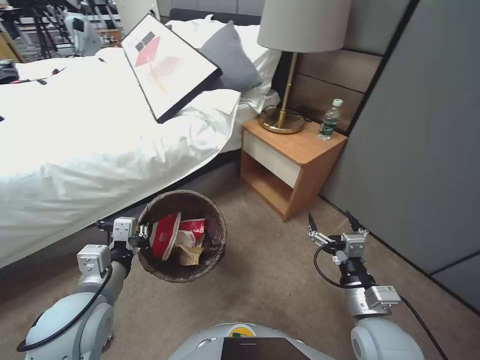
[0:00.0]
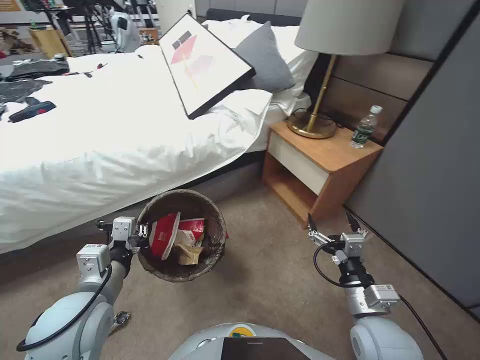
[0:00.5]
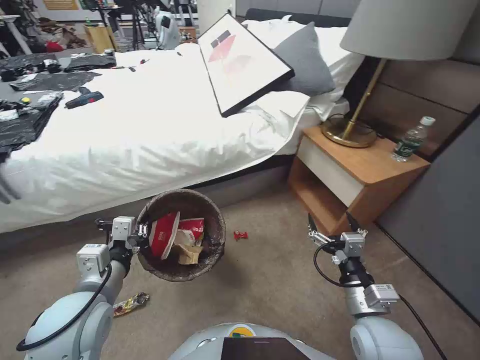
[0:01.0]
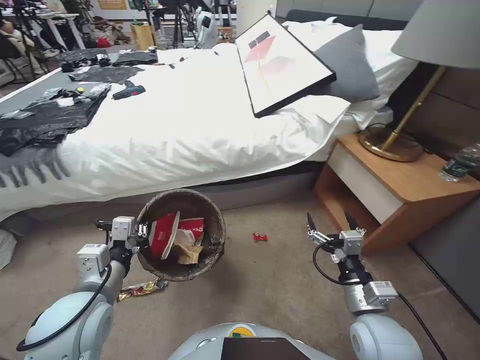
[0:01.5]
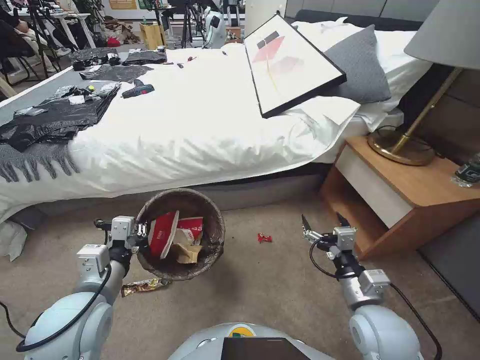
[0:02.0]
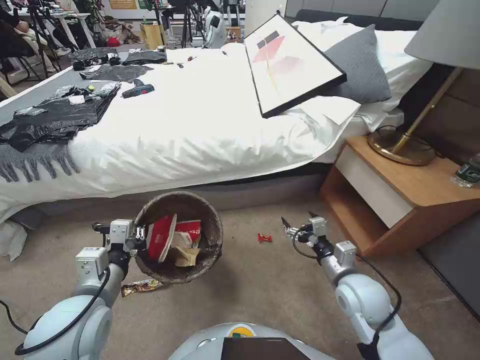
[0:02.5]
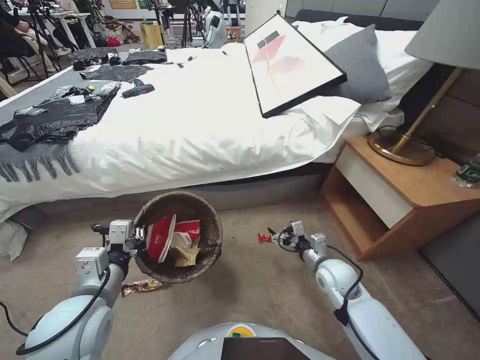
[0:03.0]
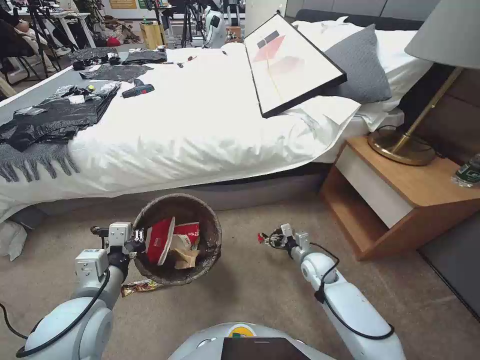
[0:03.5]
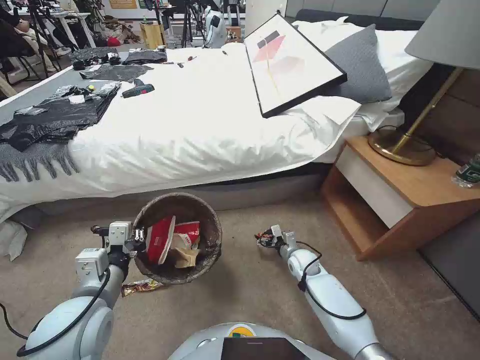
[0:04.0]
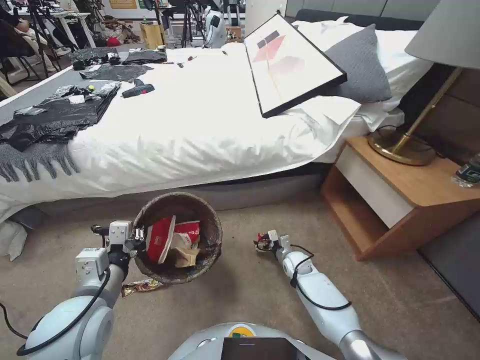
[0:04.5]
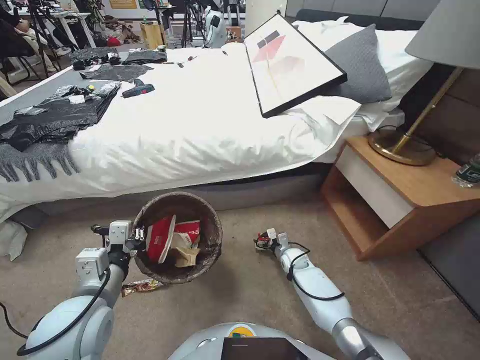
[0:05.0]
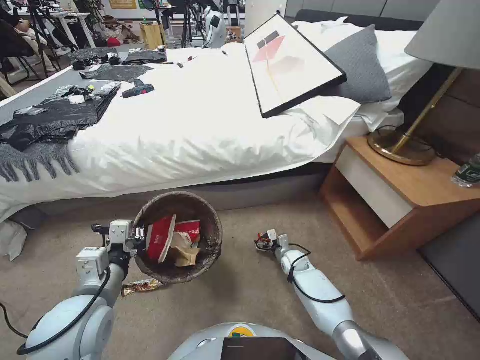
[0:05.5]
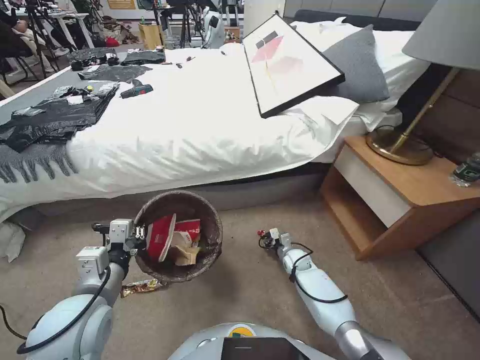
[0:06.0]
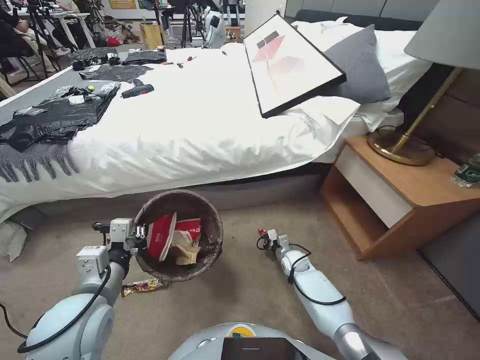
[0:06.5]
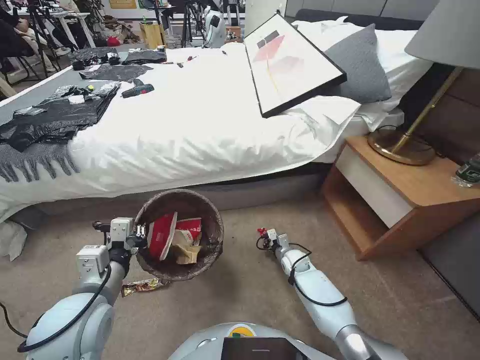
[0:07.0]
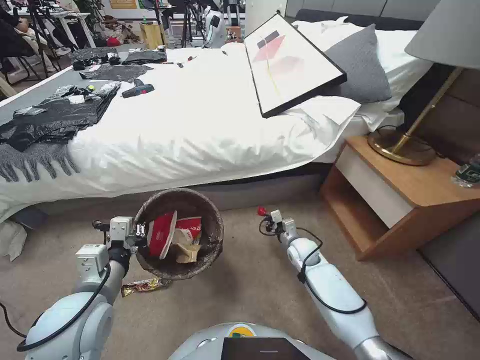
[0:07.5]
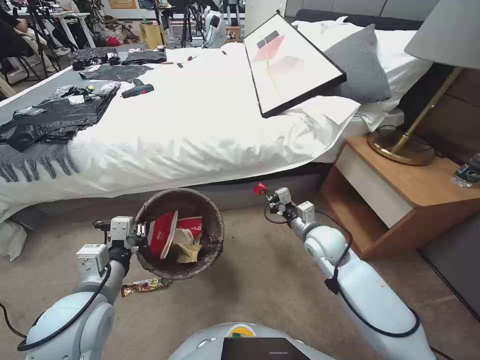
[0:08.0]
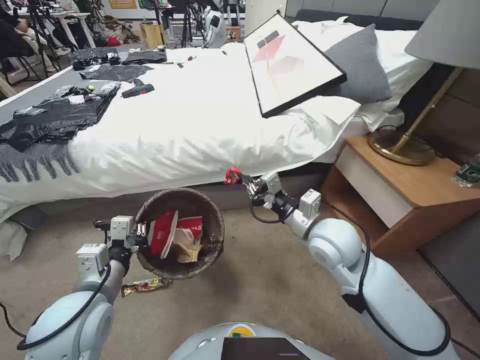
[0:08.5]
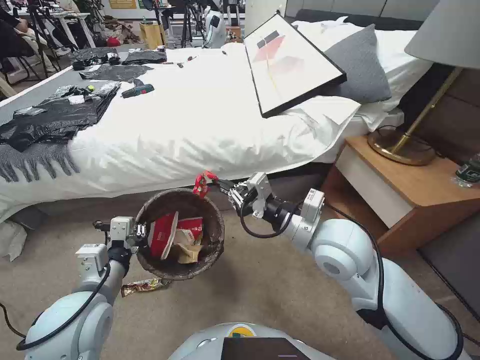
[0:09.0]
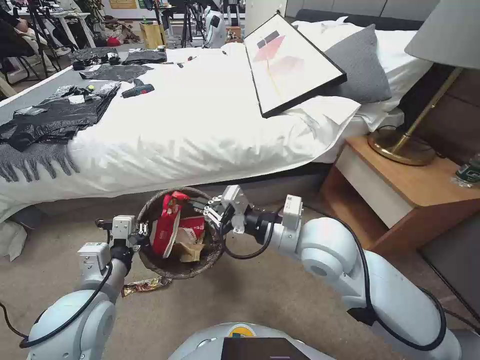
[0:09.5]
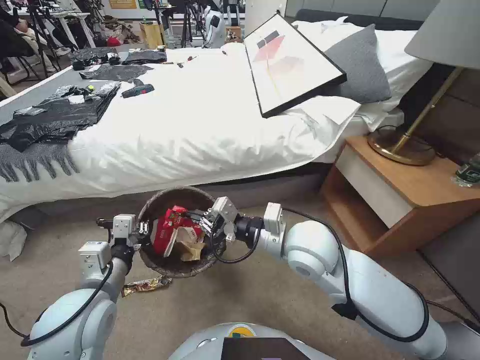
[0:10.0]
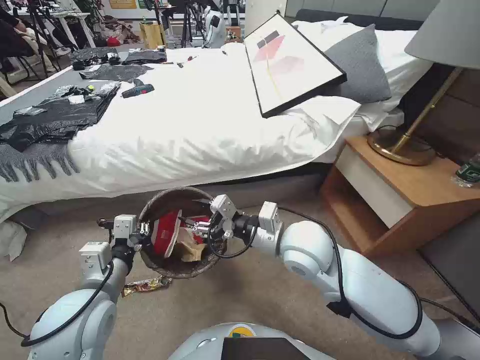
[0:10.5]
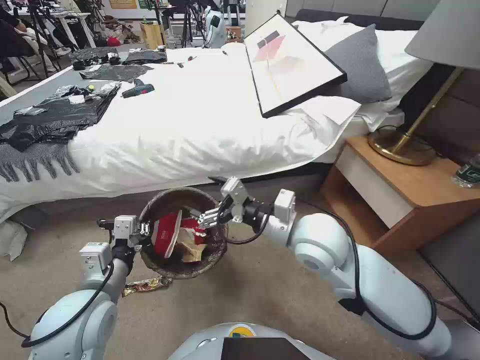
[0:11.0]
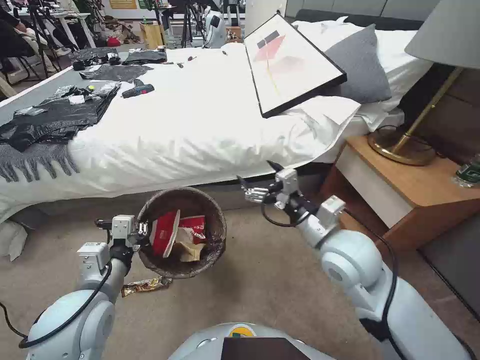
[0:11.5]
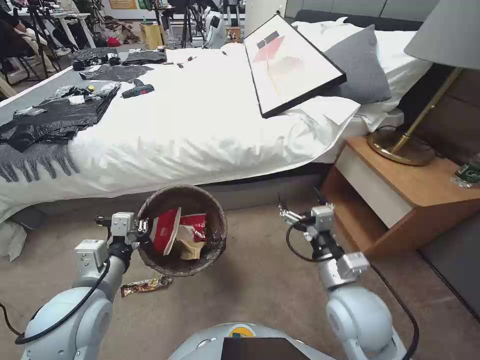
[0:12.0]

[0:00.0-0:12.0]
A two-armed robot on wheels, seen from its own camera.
Task of the whole recording: Pick up the trash bin, then pick up the garbage from the floor and place it into the trash bin.
0:02.0 to 0:04.0: The right gripper travels forward and downward by approximately 30 cm.
0:04.0 to 0:06.0: The right gripper goes approximately 5 cm downward, and closes its fingers.
0:06.0 to 0:08.0: The right gripper moves upward, some 25 cm, and closes.
0:08.0 to 0:10.0: The right gripper is displaced upward, to the left and backward by roughly 20 cm.
0:10.0 to 0:12.0: The right gripper travels to the right, backward and downward by approximately 15 cm, and opens up.

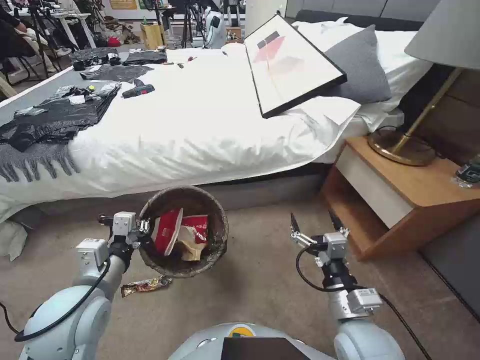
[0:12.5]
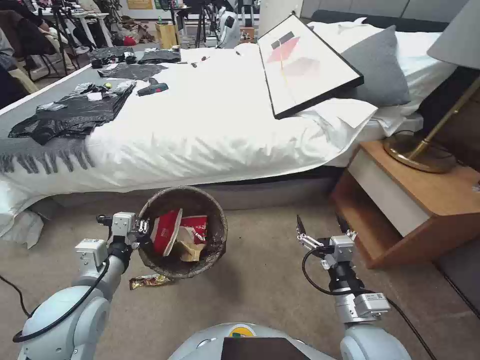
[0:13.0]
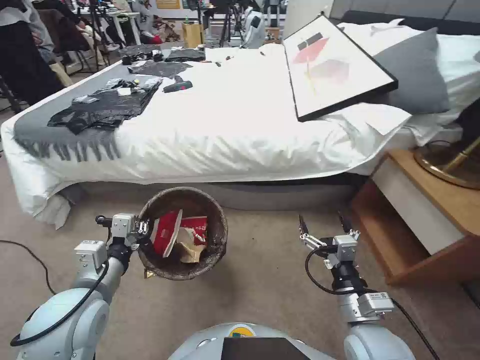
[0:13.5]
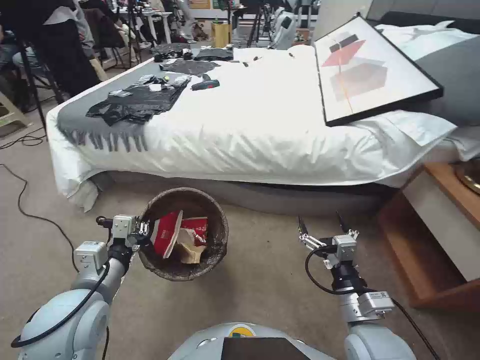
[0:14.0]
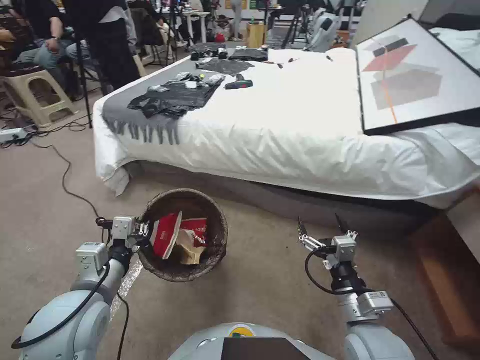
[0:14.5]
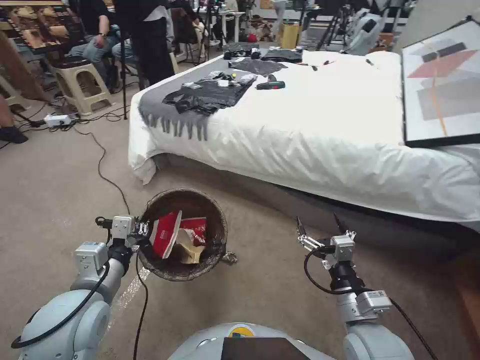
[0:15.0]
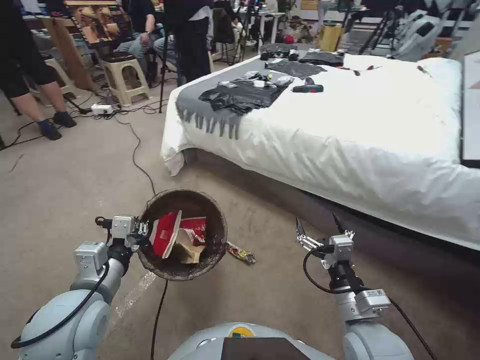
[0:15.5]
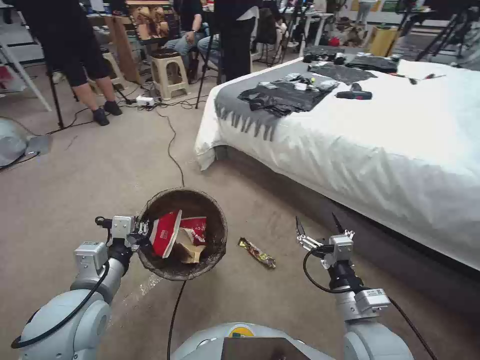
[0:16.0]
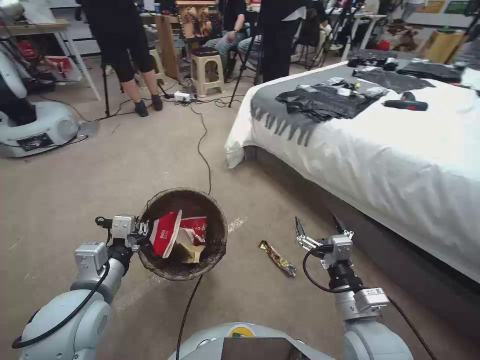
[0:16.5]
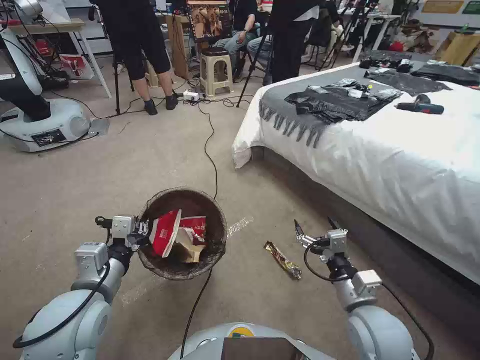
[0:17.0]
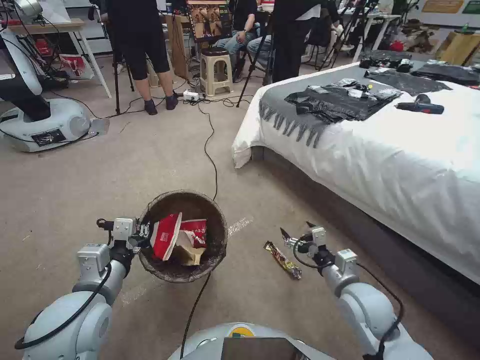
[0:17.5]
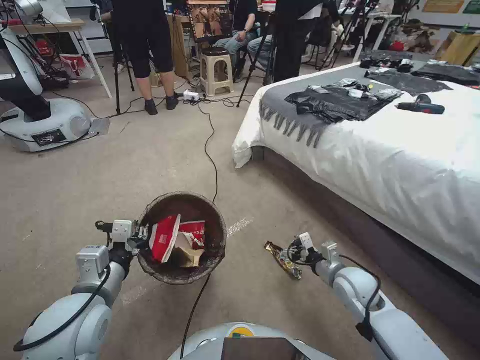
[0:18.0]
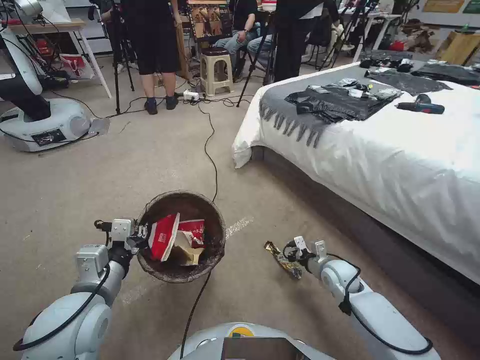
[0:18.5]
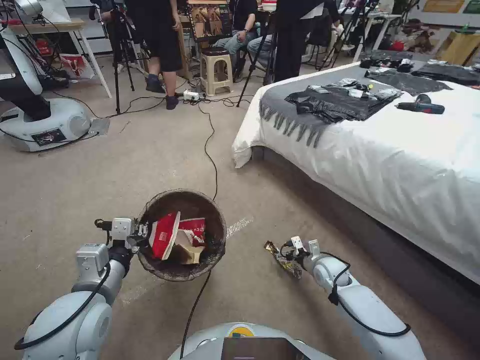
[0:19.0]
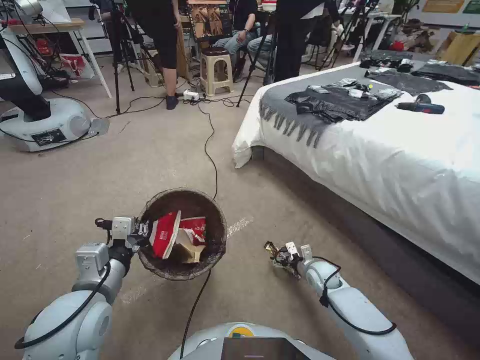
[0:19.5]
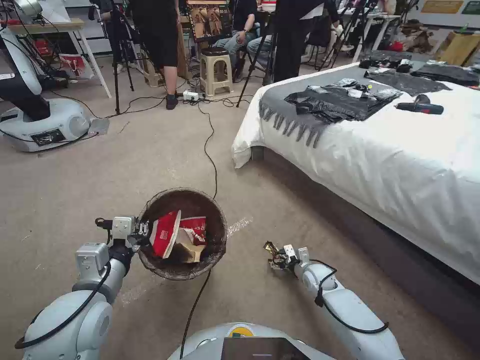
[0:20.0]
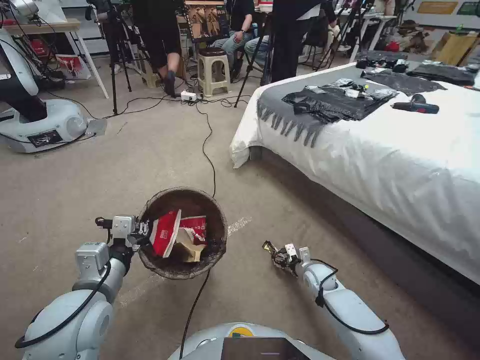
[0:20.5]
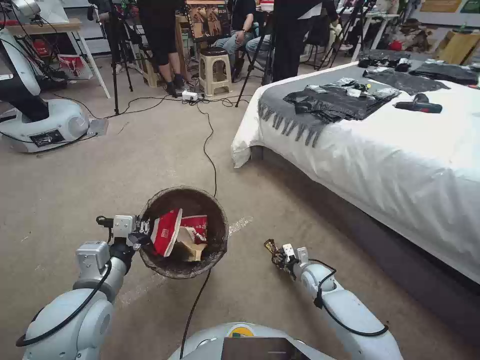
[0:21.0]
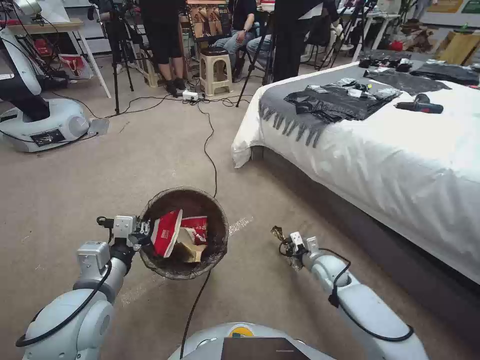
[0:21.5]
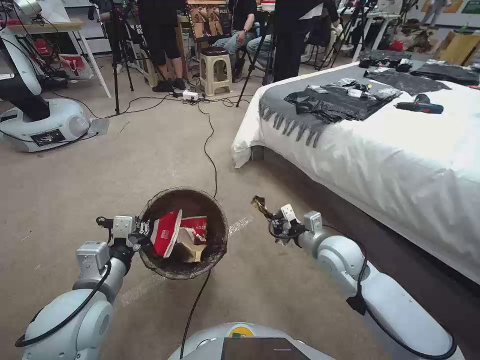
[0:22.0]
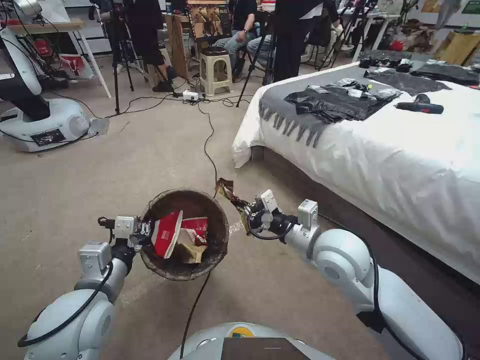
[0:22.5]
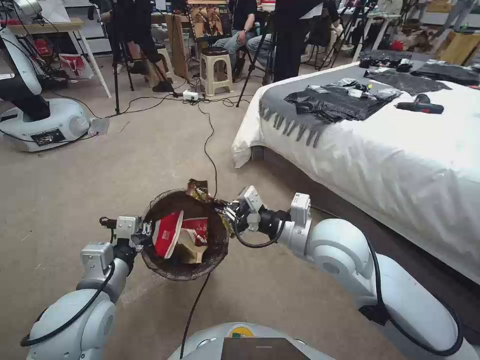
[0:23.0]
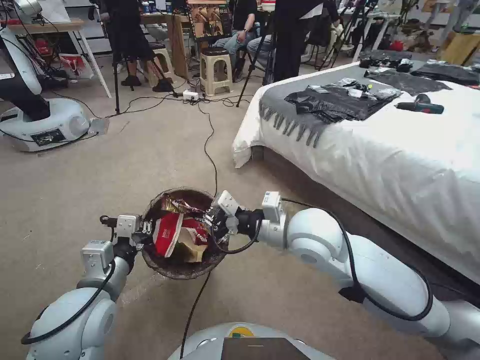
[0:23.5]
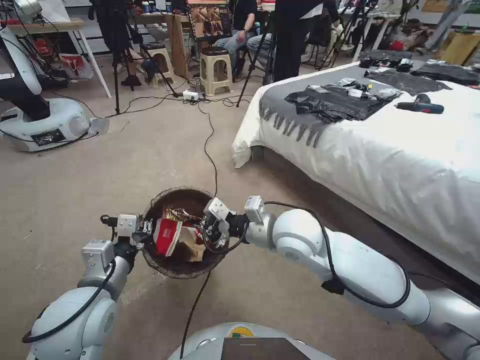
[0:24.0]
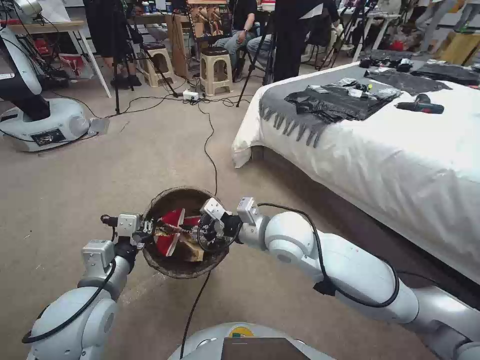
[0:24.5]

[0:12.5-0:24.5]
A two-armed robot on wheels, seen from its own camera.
Task of the whole recording: Pick up the trash bin, then pick up the garbage from the floor and place it into the trash bin.
0:16.5 to 0:18.5: The right gripper moves forward, downward and to the right, approximately 20 cm.
0:18.5 to 0:20.5: The right gripper is displaced downward by approximately 10 cm.
0:20.5 to 0:22.5: The right gripper moves upward, approximately 30 cm, and closes its fingers.
0:22.5 to 0:24.5: The right gripper goes about 10 cm to the left, and opens its fingers.

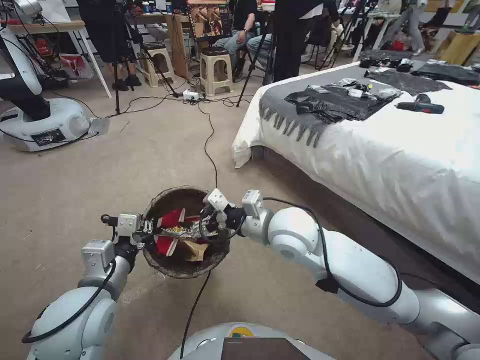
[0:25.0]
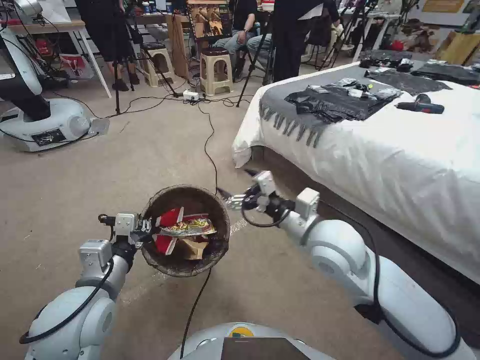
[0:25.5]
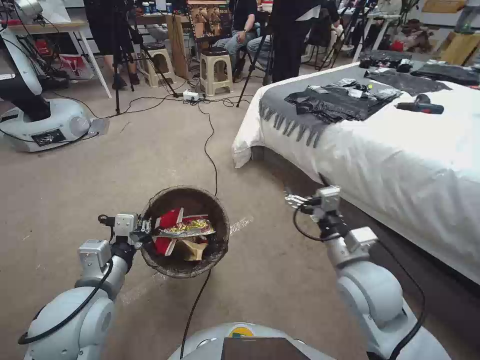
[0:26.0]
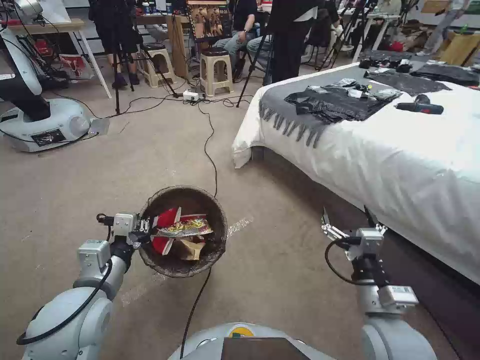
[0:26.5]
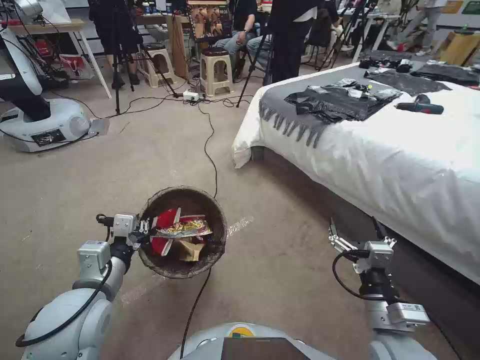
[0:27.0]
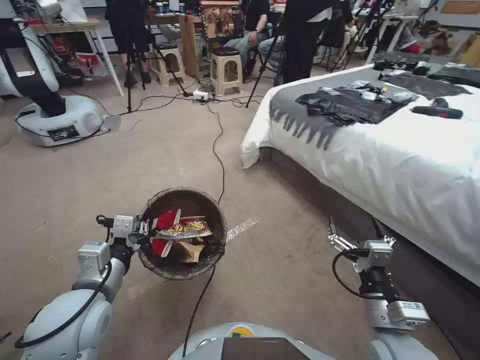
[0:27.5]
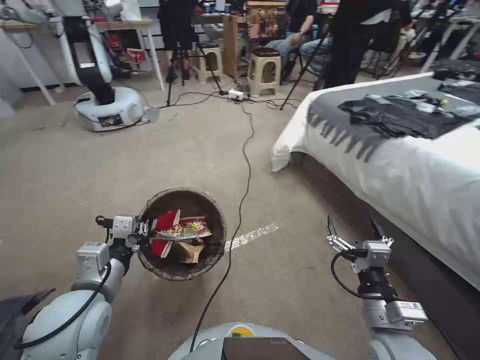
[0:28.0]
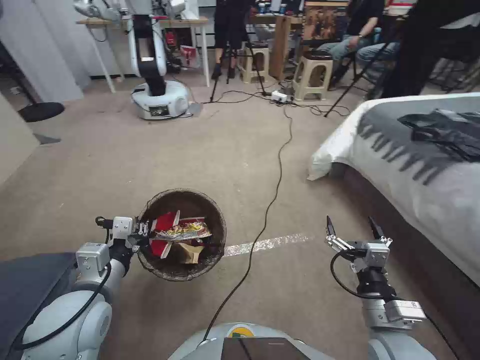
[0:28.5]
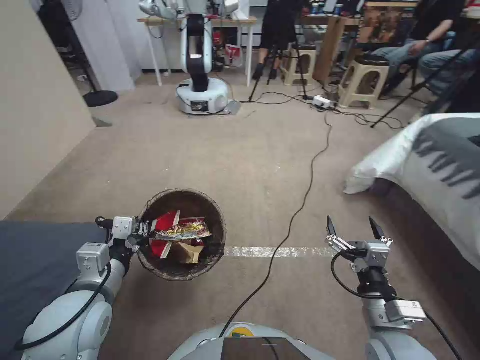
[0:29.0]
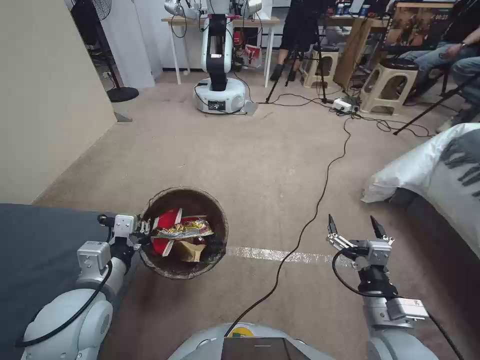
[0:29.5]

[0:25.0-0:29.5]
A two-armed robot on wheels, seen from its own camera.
Task of the whole recording: Pick up the trash bin, then pick up the garbage from the floor and place it into the trash bin.
0:25.0 to 0:27.0: The right gripper is displaced backward, to the right and downward by roughly 30 cm.
